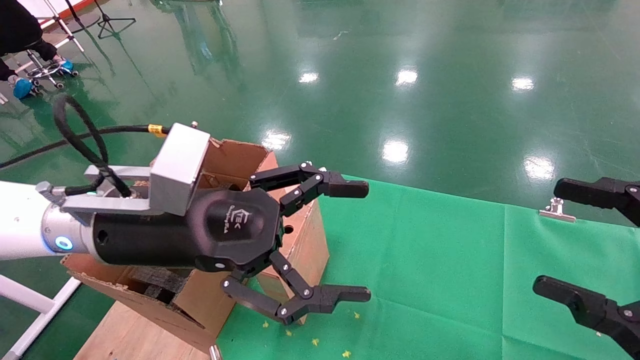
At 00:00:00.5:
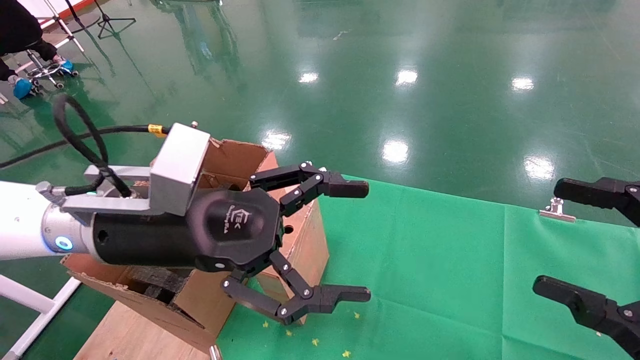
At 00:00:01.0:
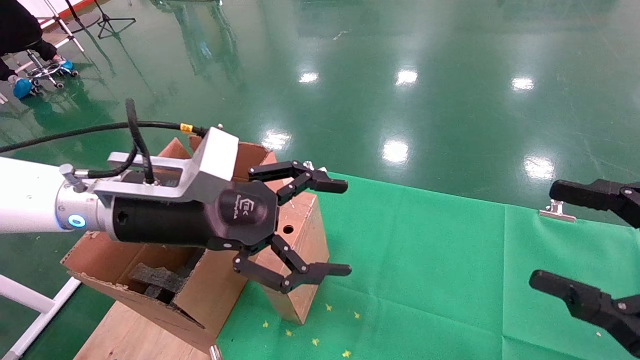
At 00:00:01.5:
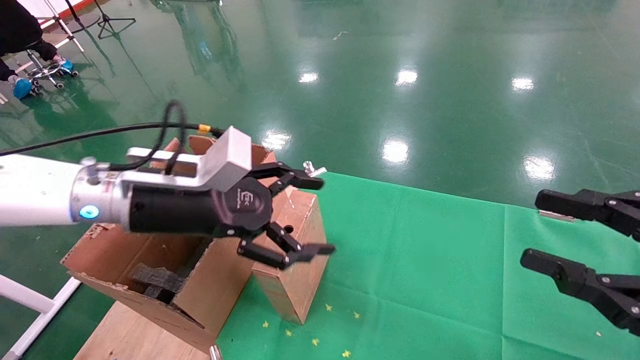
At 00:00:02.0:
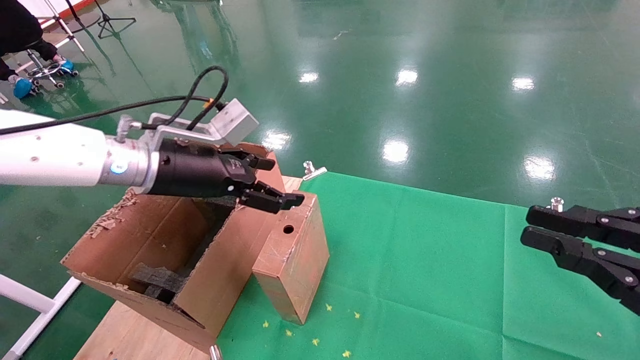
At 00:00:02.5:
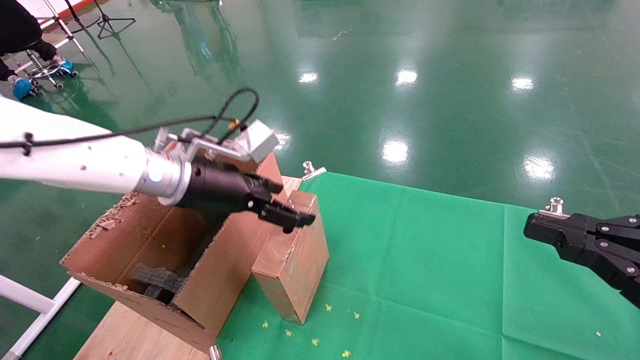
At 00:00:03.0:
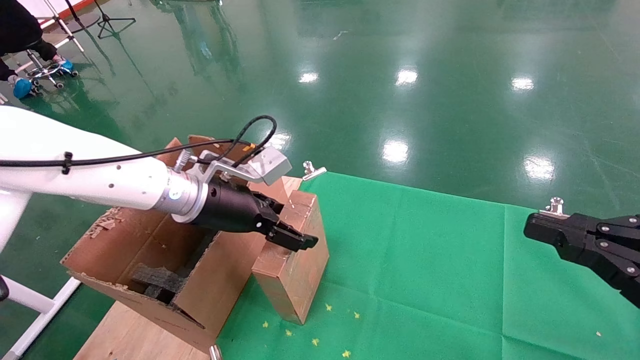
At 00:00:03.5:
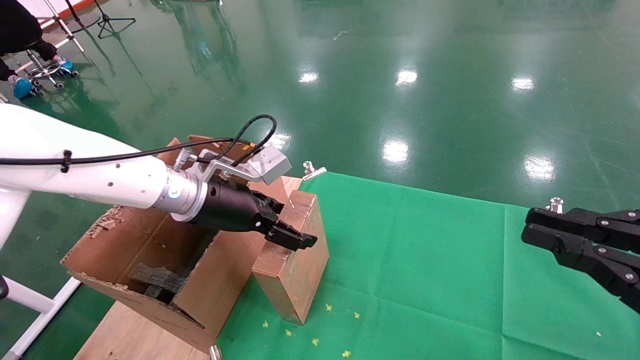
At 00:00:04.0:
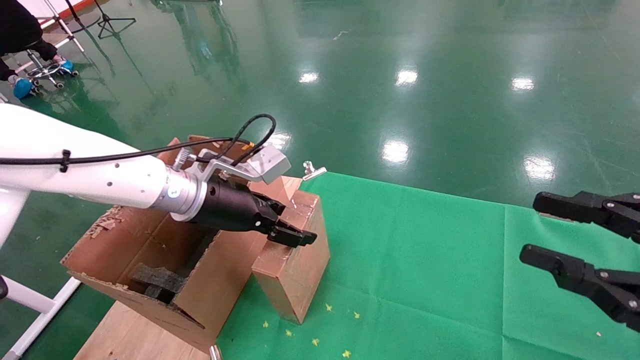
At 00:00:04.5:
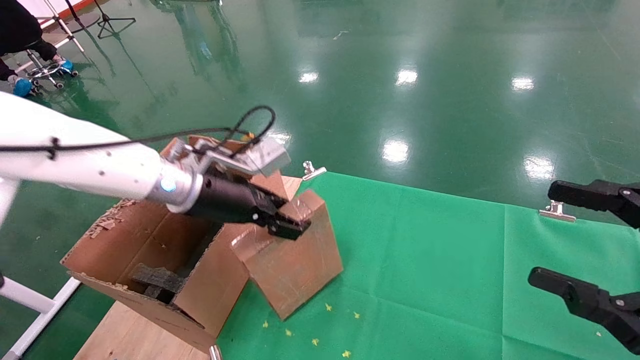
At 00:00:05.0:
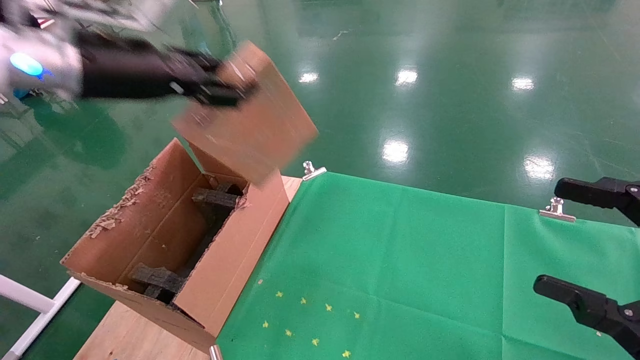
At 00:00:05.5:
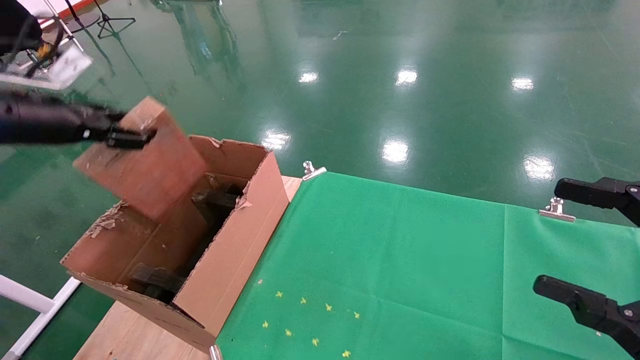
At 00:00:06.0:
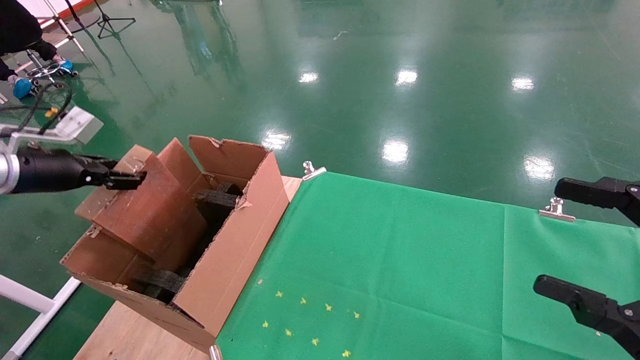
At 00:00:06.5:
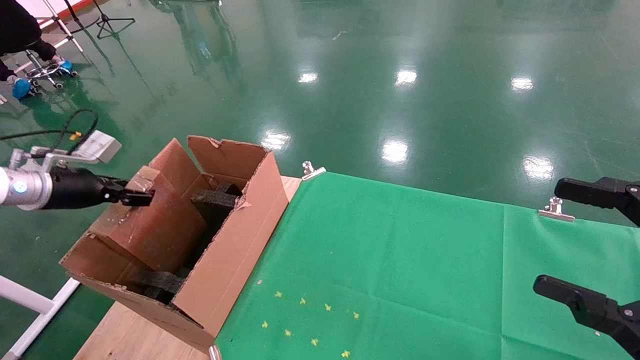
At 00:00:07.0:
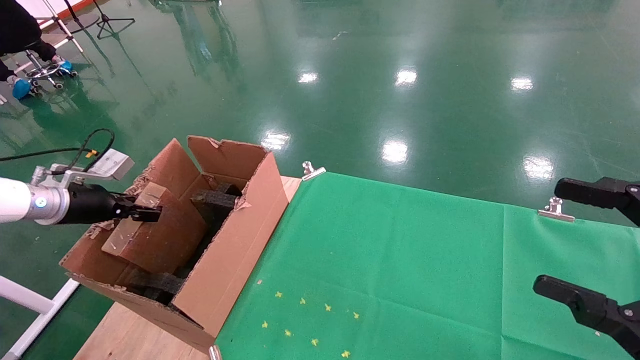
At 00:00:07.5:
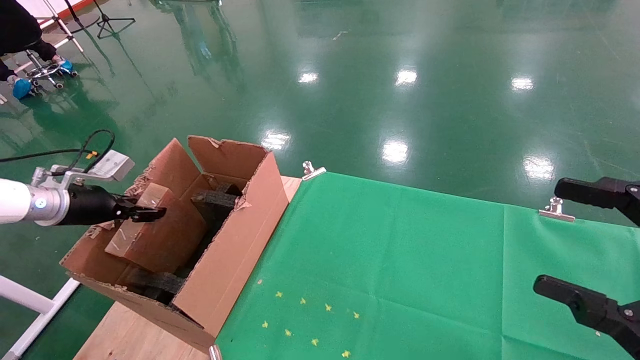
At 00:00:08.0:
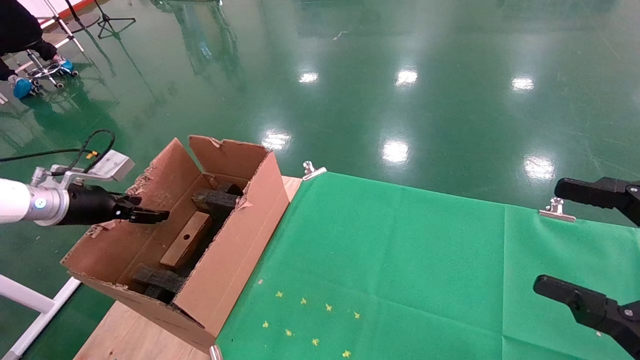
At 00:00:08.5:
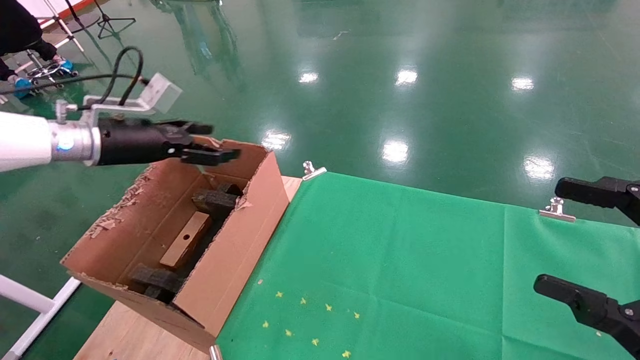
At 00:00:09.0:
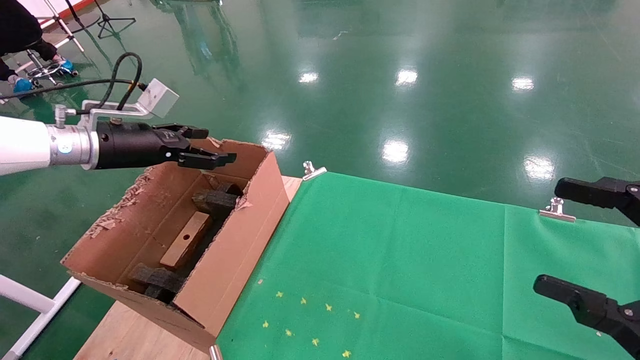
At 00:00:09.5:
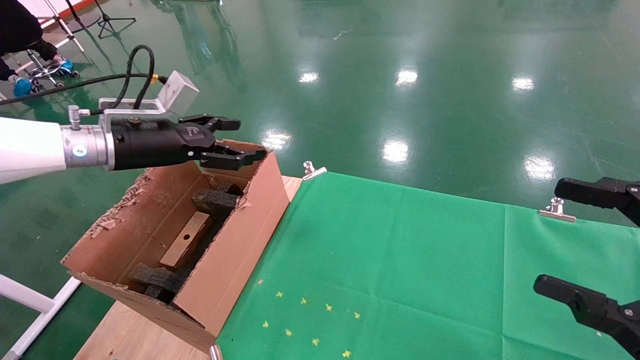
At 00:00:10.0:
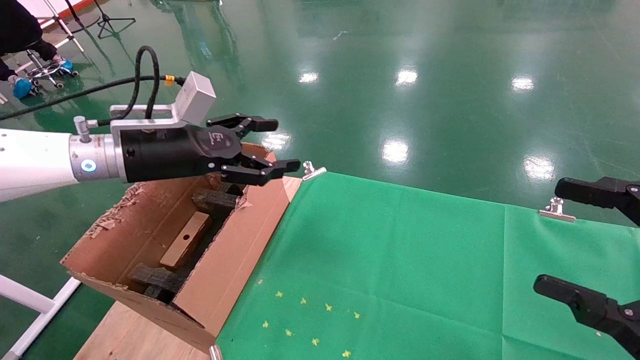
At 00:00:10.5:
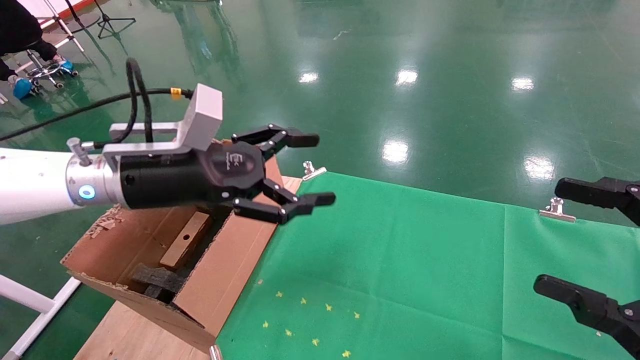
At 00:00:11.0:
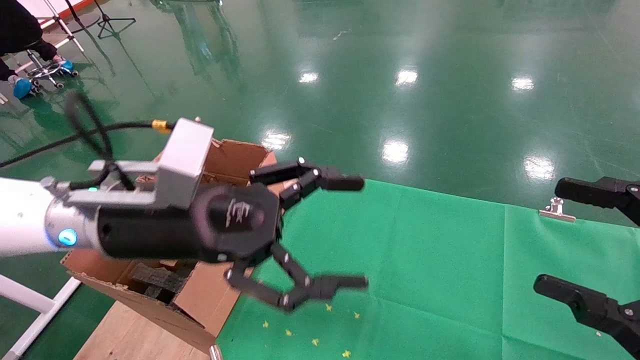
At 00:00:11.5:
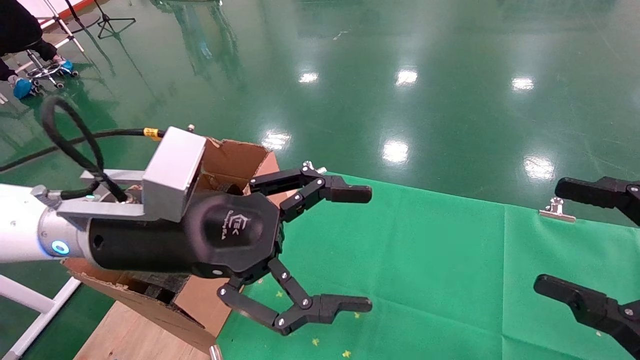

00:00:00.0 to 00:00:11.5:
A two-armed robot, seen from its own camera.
Task of the whole recording: using a robotic arm to pick up a cardboard box and palace it the carton.
Step, 00:00:01.0 to 00:00:04.0: Pick up the mouse and the power cord paper box.
Step, 00:00:04.5 to 00:00:08.0: Place the mouse and the power cord paper box into the container.
00:00:00.0 to 00:00:02.0: The left gripper heads forward and to the left, covering approximately 10 cm, while the right gripper closes up.
00:00:02.0 to 00:00:04.0: The left gripper ends up approximately 5 cm from where it was.
00:00:04.0 to 00:00:06.0: The right gripper opens its fingers, while the left gripper goes approximately 30 cm to the left, and closes.
00:00:06.0 to 00:00:07.5: The left gripper moves downward, about 10 cm.
00:00:07.5 to 00:00:09.5: The left gripper travels to the right and upward by about 20 cm, and opens its fingers.
00:00:09.5 to 00:00:11.5: The left gripper is displaced to the right and backward by approximately 20 cm.

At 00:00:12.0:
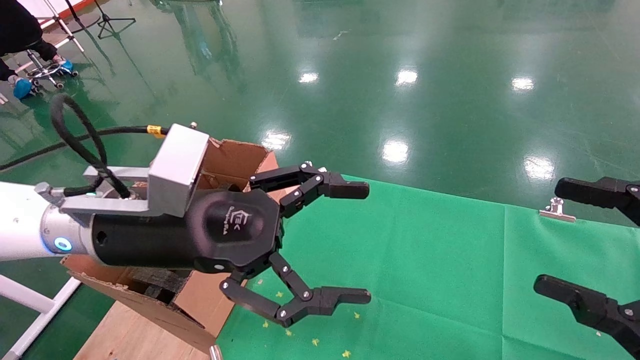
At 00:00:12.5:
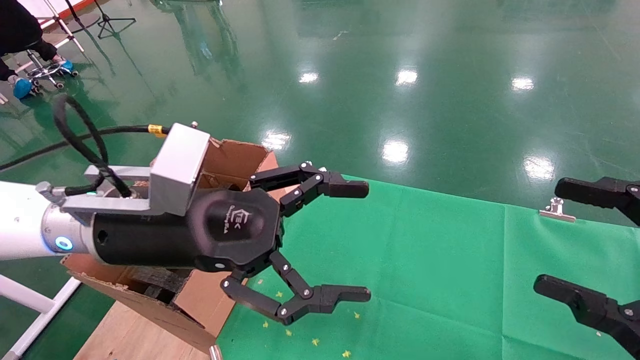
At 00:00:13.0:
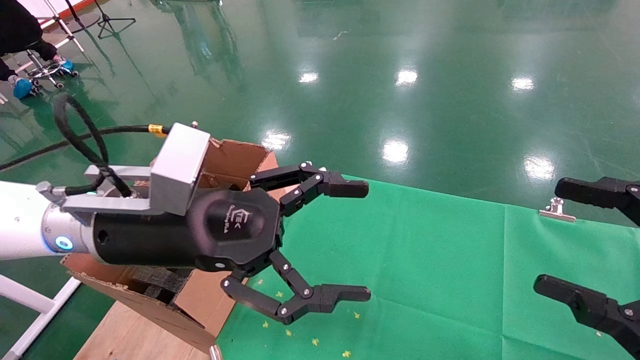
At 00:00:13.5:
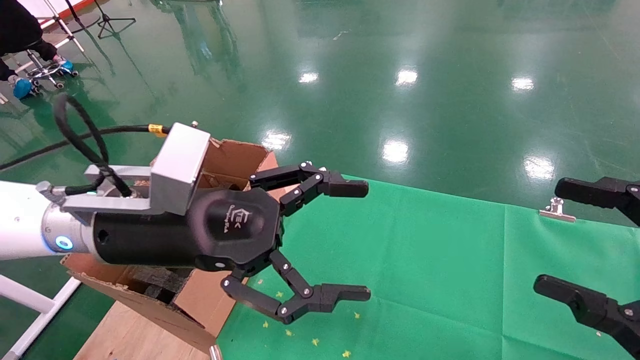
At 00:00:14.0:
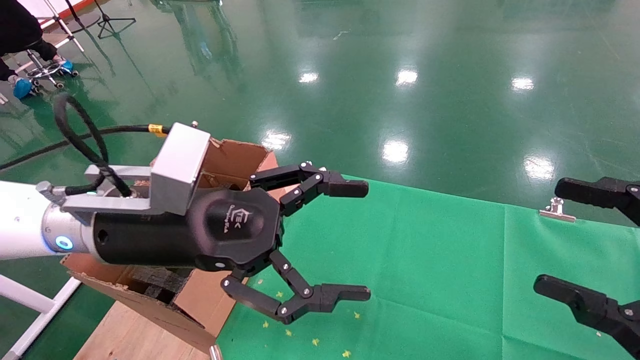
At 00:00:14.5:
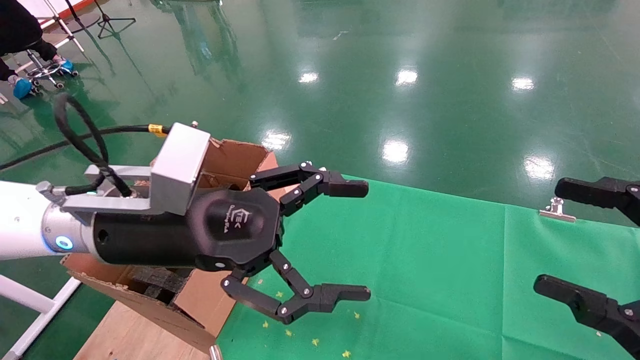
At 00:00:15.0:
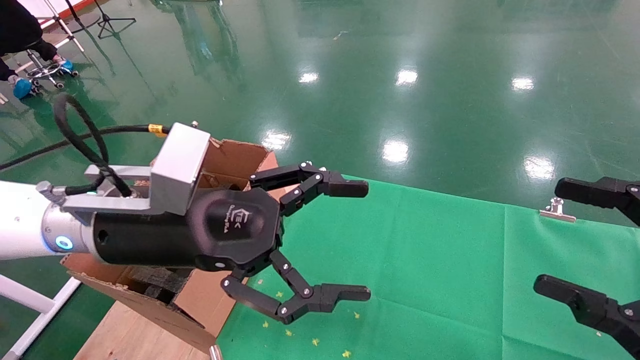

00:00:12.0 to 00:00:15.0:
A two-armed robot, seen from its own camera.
Task of the whole recording: using a robotic arm to pick up a cardboard box and palace it the carton.
00:00:12.0 to 00:00:15.0: The two grippers keep their place.
